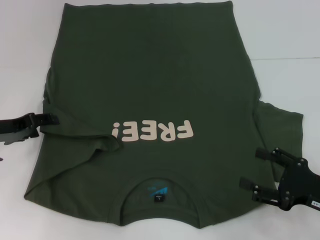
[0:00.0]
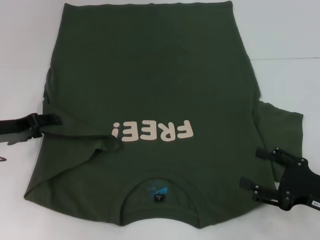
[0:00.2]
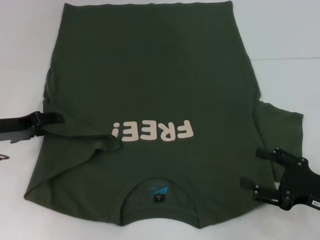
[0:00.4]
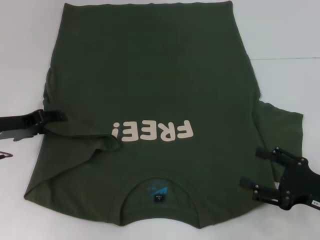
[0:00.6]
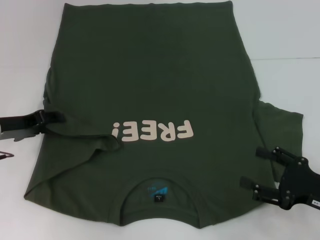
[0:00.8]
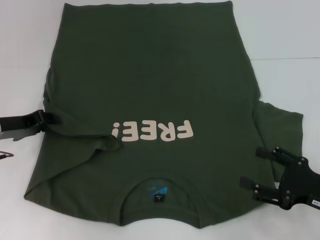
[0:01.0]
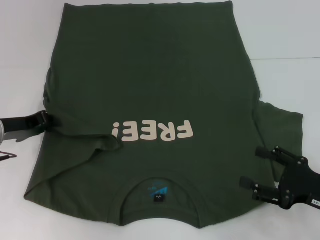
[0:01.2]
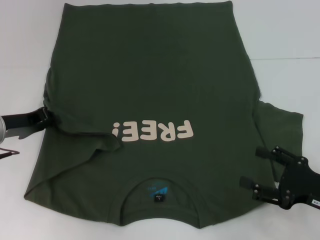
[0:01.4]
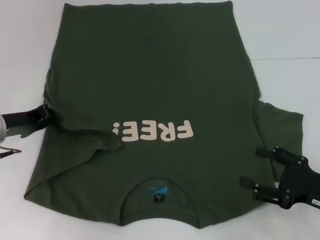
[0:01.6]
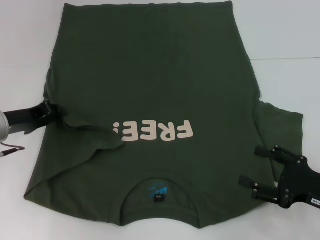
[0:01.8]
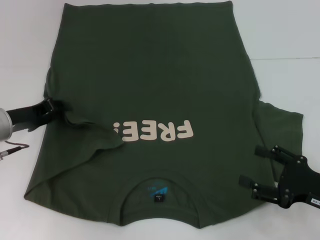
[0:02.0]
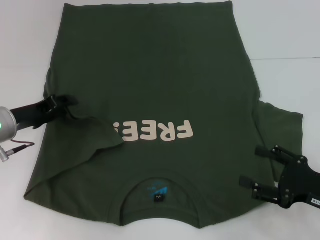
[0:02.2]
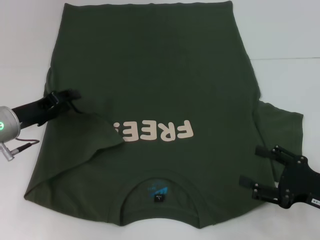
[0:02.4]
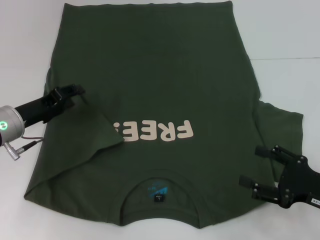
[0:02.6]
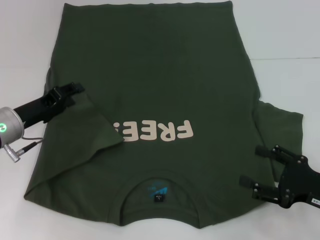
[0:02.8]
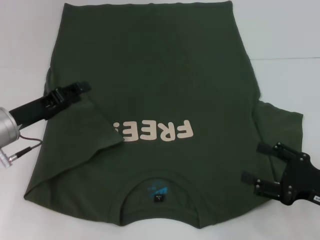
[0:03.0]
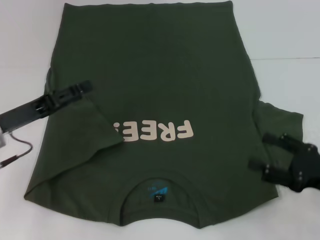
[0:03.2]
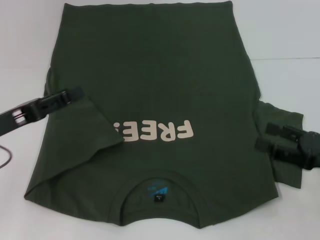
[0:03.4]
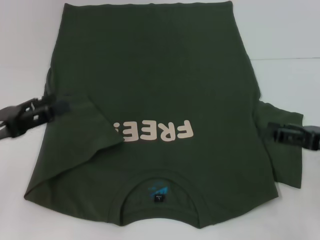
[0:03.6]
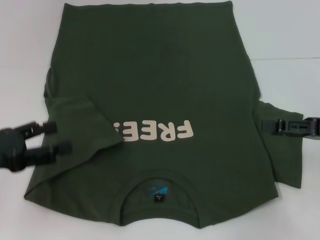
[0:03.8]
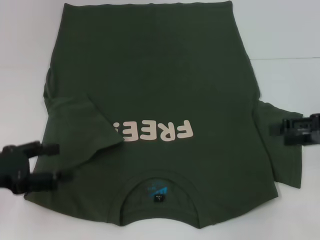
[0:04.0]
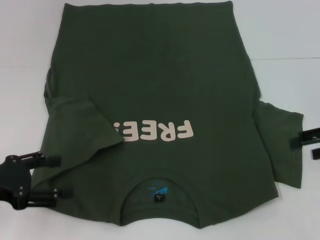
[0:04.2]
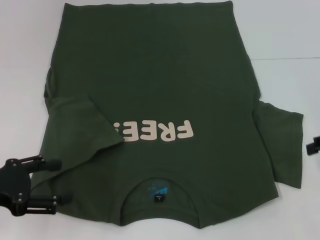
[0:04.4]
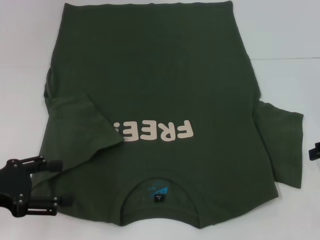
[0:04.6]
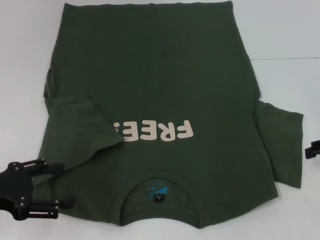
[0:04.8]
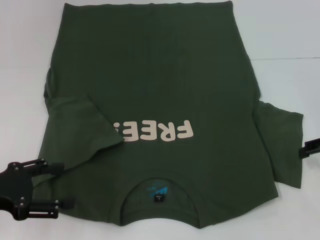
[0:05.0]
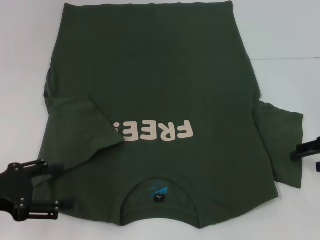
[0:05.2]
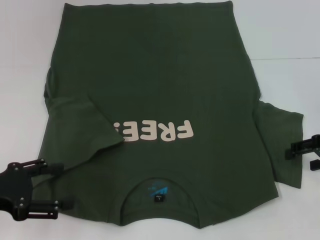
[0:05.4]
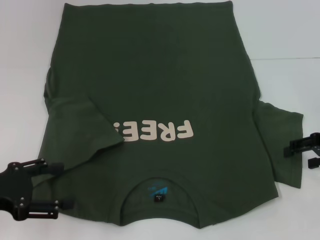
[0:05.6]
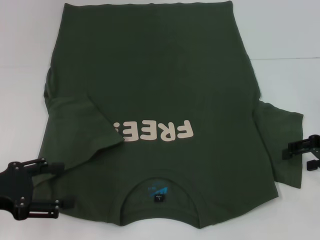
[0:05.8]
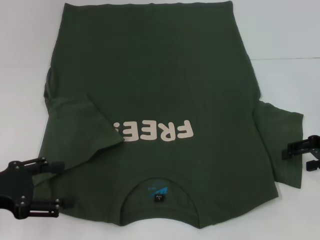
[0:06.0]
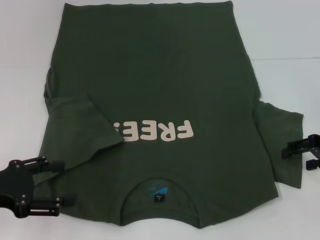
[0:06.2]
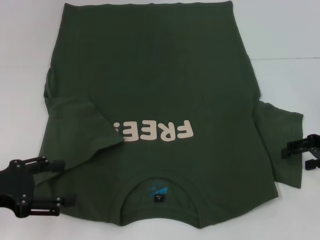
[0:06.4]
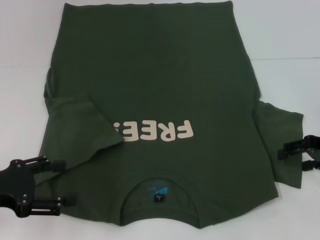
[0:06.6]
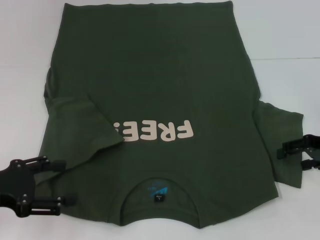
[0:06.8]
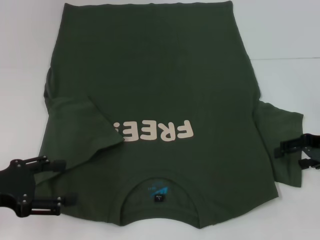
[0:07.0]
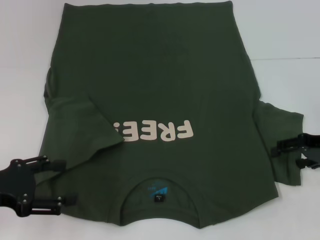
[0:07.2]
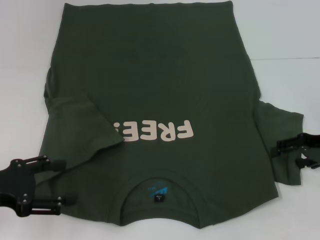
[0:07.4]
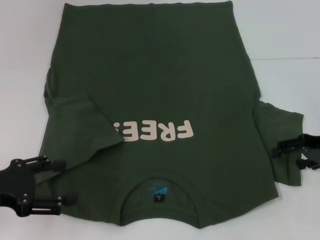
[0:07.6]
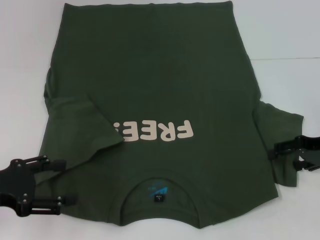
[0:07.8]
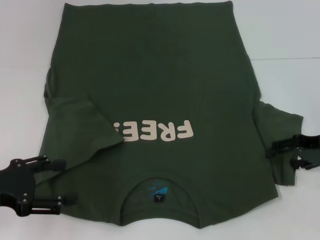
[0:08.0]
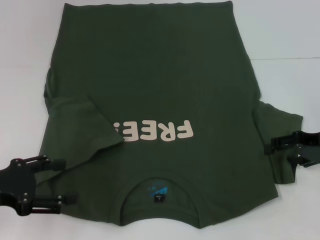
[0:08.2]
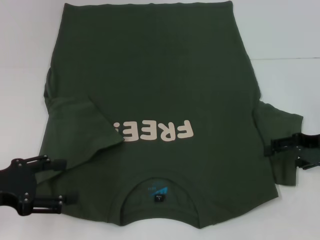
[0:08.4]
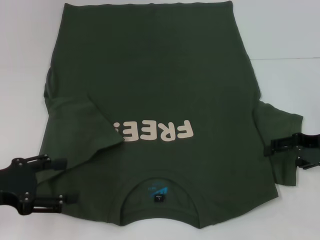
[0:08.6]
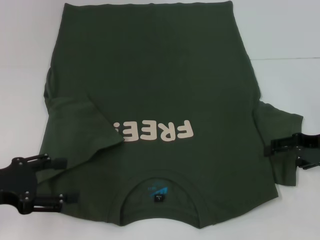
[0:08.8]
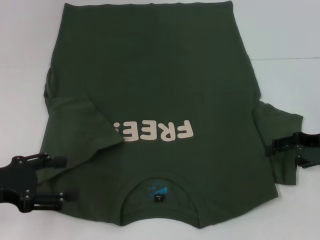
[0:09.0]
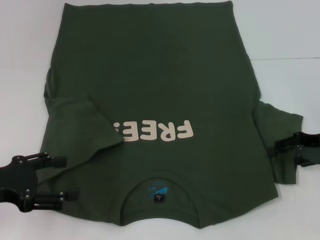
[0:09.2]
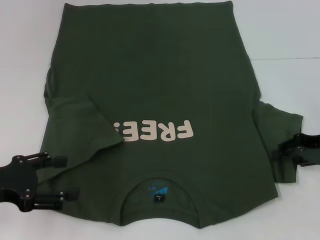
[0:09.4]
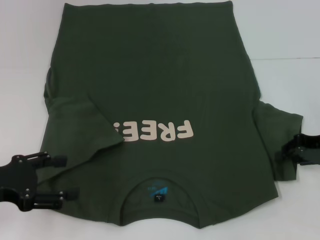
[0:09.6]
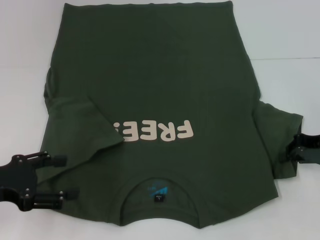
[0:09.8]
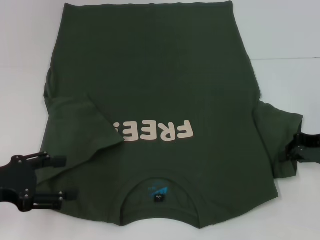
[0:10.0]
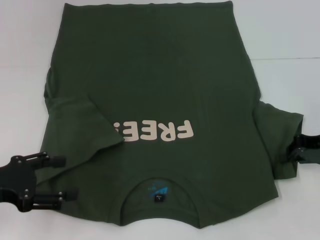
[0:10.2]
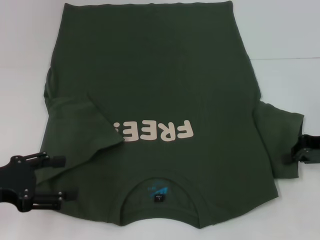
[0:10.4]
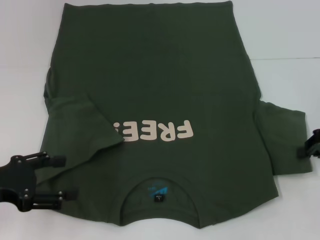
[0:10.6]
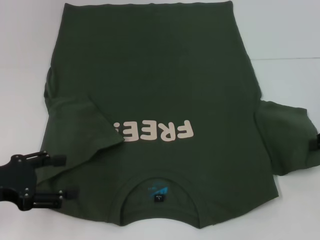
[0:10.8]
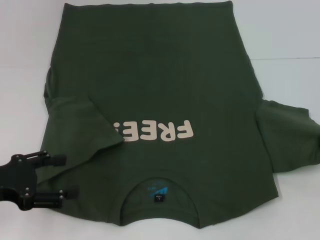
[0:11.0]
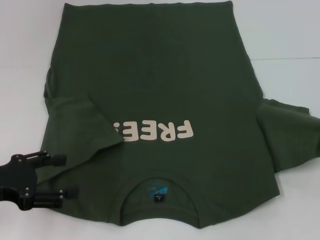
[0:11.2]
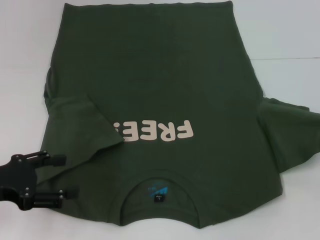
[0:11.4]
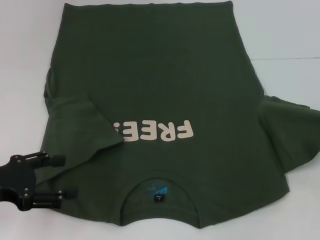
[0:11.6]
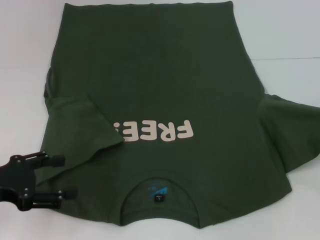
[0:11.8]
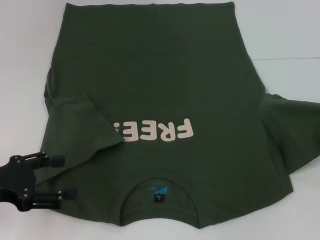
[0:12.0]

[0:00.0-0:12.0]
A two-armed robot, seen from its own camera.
Step, 0:00.0 to 0:03.4: Fold the bottom left sleeve with your left hand.
0:00.0 to 0:01.6: The left gripper closes its fingers.
0:01.6 to 0:03.0: The left gripper opens.
0:03.0 to 0:04.4: The left gripper is displaced backward and to the left by roughly 10 cm. The right gripper heads upward, forward and to the right, covering roughly 15 cm.
0:04.4 to 0:06.0: The right gripper moves downward, about 5 cm.
0:06.0 to 0:07.6: The two grippers keep their place.
0:07.6 to 0:09.0: Neither gripper changes place.
0:09.0 to 0:10.4: The right gripper closes up.
0:10.4 to 0:12.0: The right gripper heads to the right and upward, covering some 10 cm.

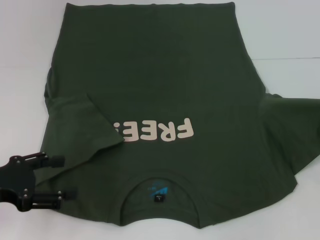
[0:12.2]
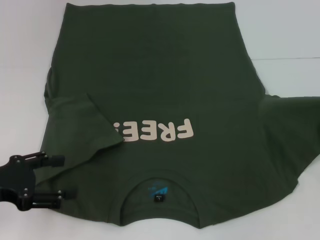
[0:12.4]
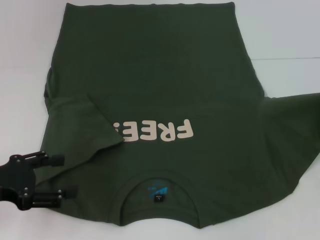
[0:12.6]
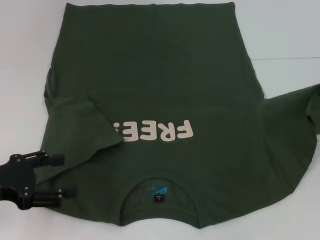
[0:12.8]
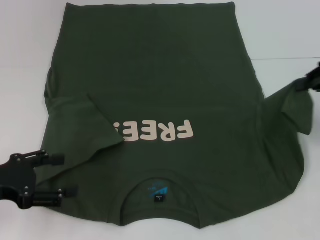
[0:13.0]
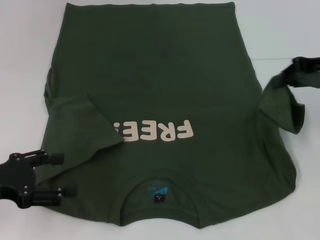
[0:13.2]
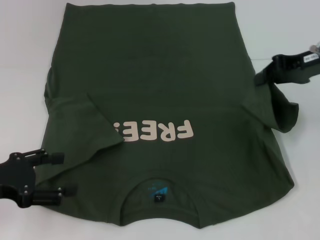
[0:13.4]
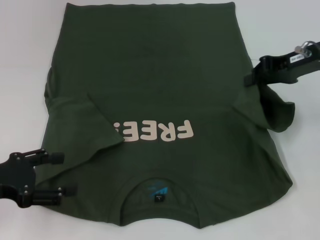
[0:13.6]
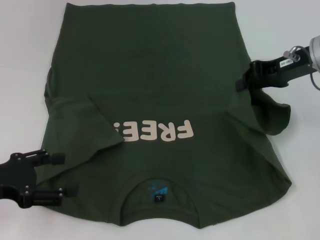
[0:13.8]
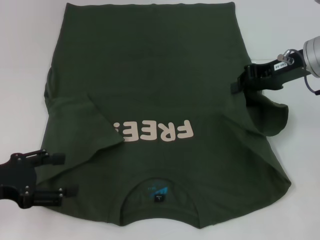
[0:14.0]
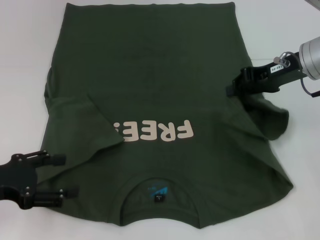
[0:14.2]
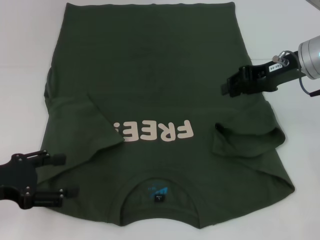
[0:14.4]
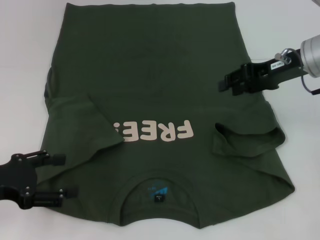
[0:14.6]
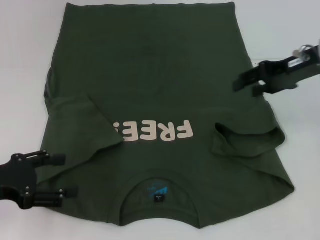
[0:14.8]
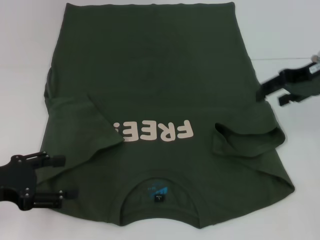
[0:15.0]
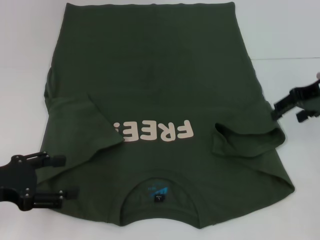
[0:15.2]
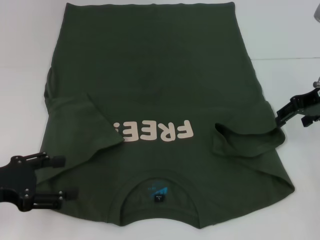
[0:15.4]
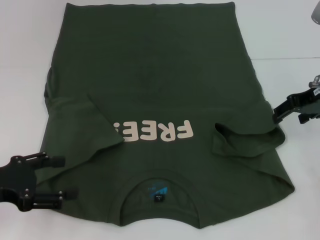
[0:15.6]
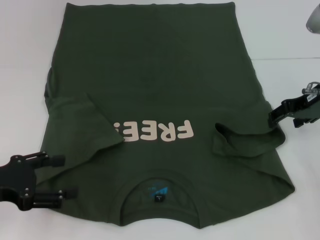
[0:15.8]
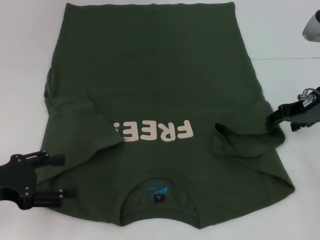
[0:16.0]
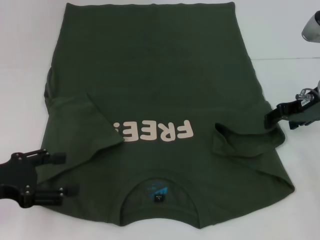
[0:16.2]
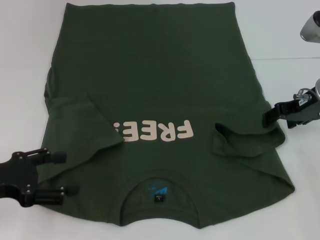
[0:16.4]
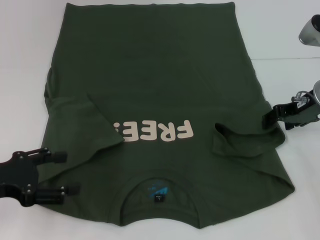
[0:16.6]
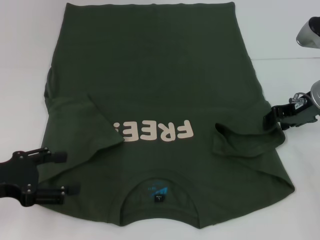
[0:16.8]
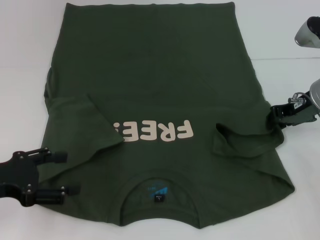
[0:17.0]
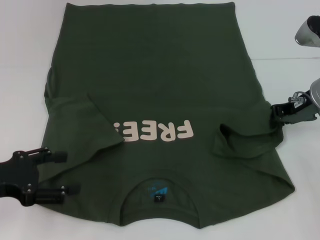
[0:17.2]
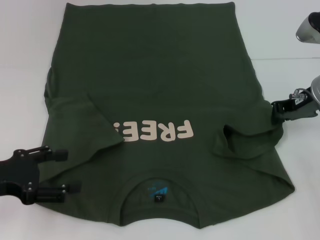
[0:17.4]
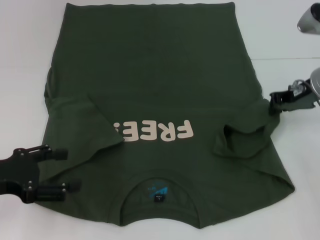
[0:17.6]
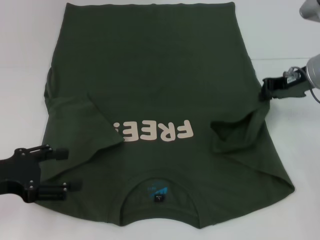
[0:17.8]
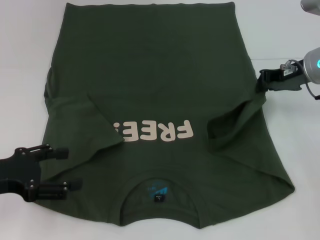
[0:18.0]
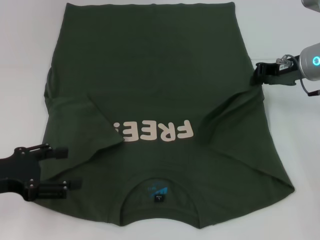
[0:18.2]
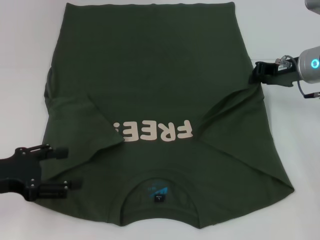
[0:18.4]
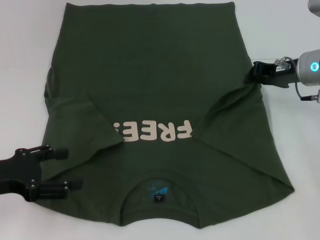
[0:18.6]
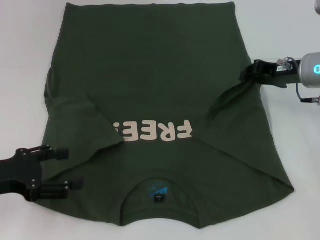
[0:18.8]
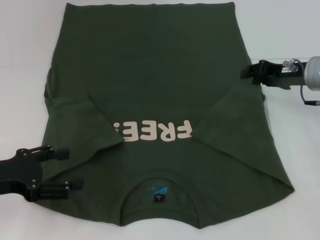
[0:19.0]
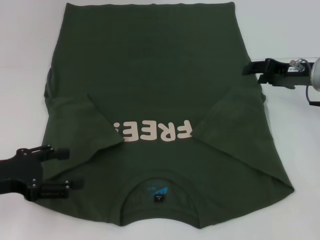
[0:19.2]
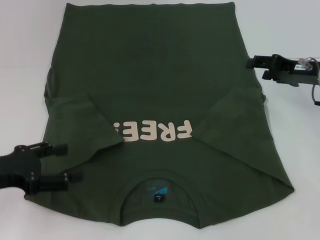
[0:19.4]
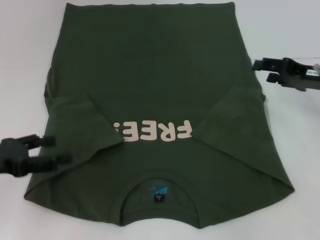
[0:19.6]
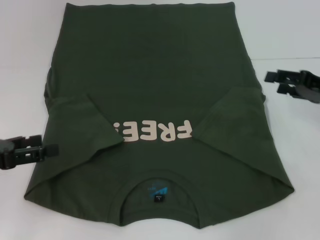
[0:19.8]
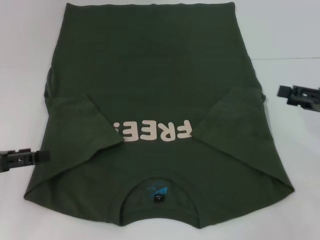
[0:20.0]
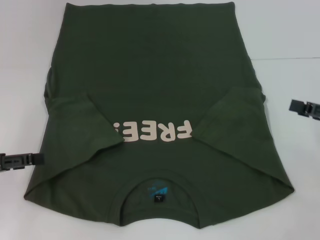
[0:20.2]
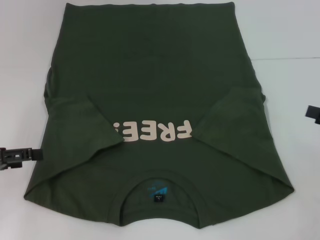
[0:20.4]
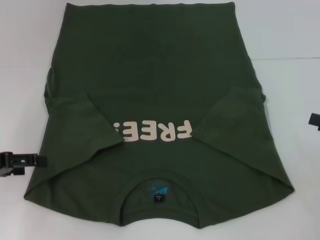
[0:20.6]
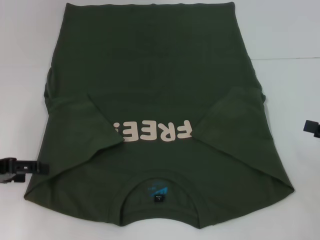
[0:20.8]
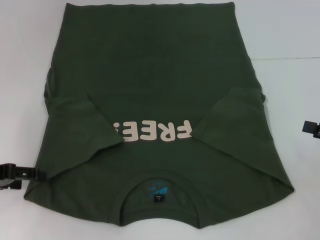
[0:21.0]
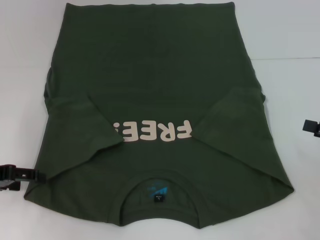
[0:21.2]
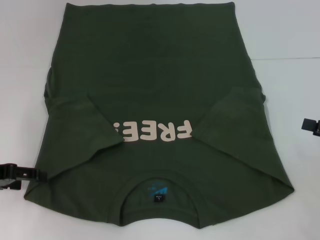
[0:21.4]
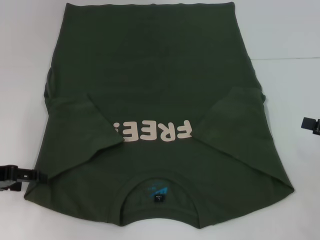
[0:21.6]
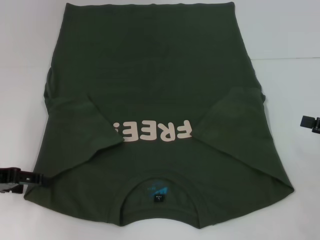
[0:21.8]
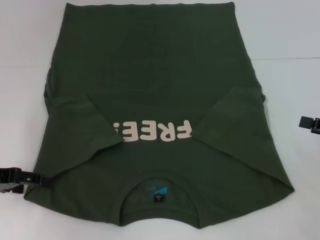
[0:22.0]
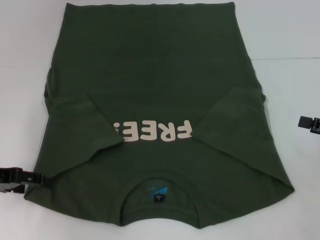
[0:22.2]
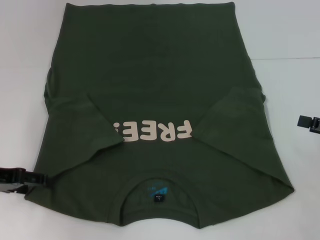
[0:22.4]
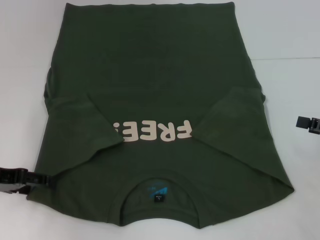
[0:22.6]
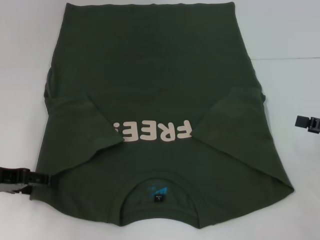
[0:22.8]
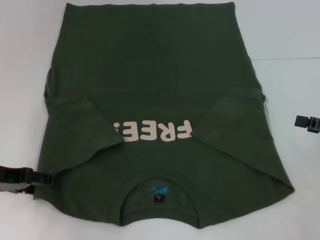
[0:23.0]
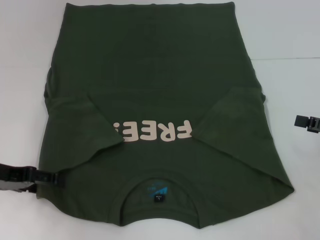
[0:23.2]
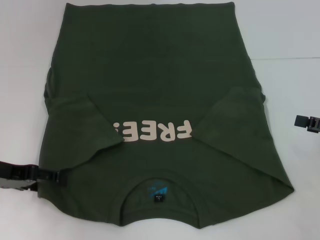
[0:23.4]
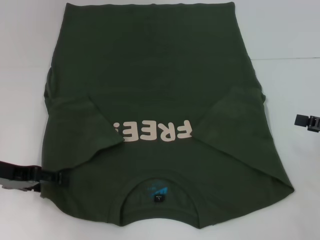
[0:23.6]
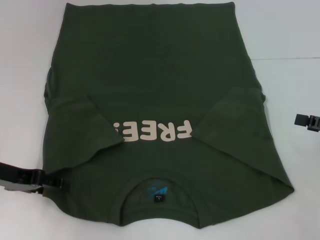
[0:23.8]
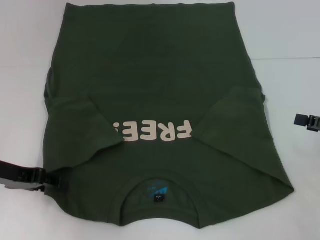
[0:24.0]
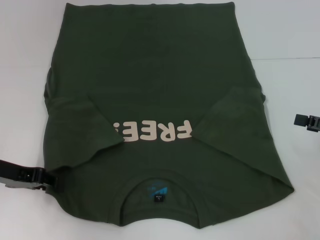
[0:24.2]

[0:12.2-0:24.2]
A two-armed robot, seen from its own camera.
Step, 0:12.2 to 0:20.0: Fold the bottom right sleeve with your right hand.
0:12.2 to 0:13.8: The right gripper shifts roughly 20 cm to the left and forward.
0:13.8 to 0:15.2: The right gripper opens up.
0:15.2 to 0:16.6: The right gripper is displaced downward by about 5 cm.
0:16.6 to 0:18.2: The right gripper closes up.
0:18.2 to 0:19.8: The right gripper moves to the right and backward, about 10 cm, and opens its fingers.
0:19.8 to 0:21.2: The right gripper travels backward and to the right by roughly 10 cm.
0:21.2 to 0:24.2: The grippers make only small movements.
